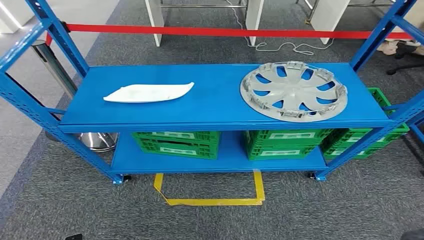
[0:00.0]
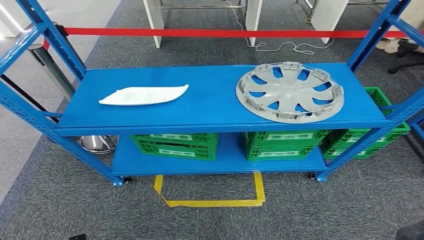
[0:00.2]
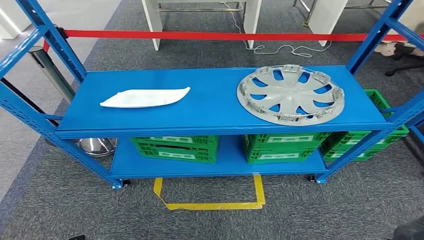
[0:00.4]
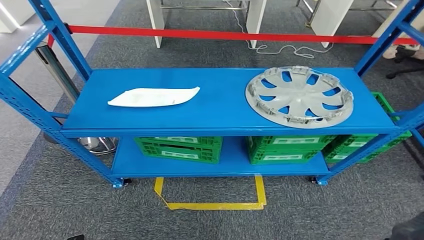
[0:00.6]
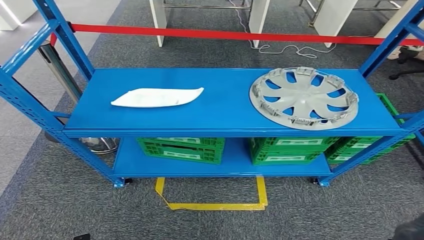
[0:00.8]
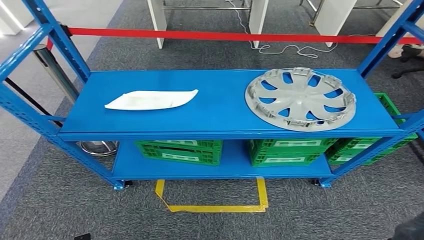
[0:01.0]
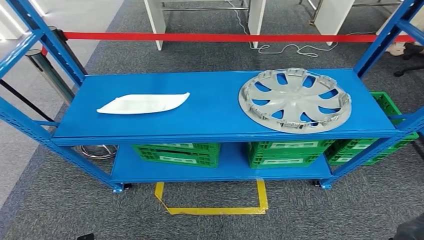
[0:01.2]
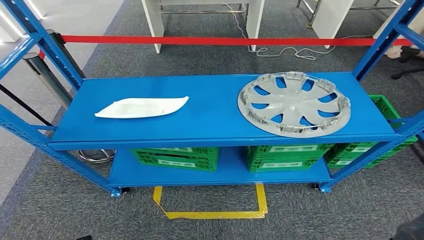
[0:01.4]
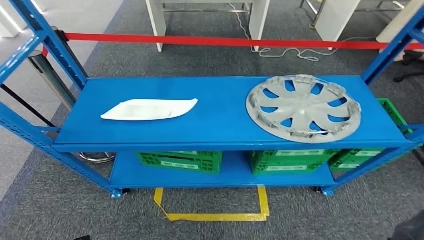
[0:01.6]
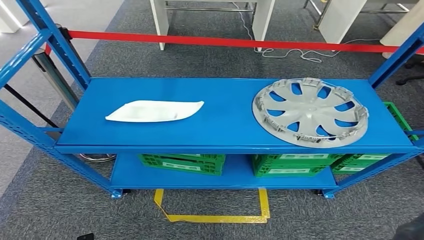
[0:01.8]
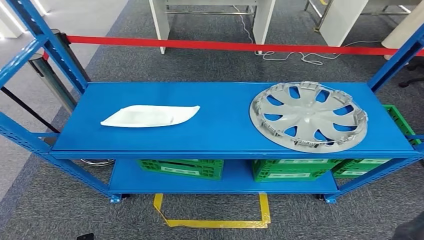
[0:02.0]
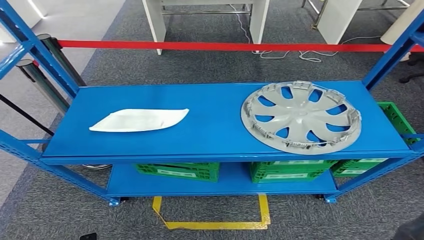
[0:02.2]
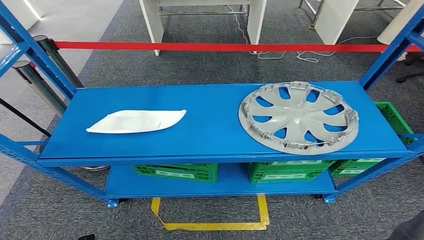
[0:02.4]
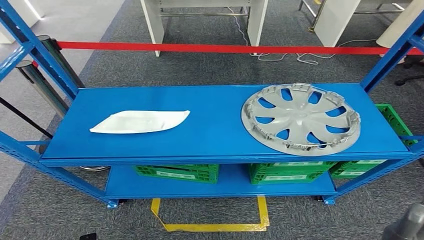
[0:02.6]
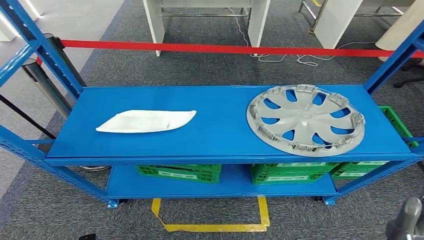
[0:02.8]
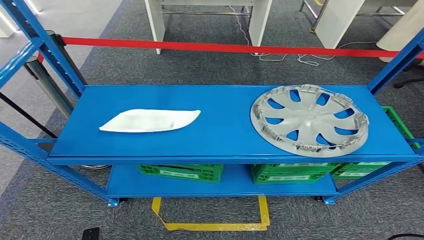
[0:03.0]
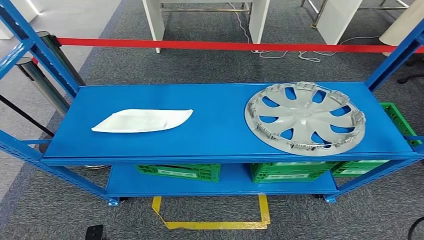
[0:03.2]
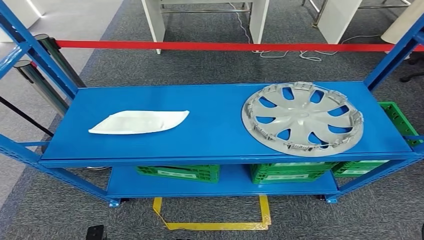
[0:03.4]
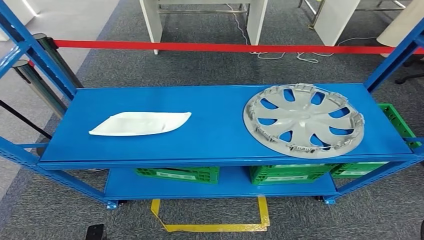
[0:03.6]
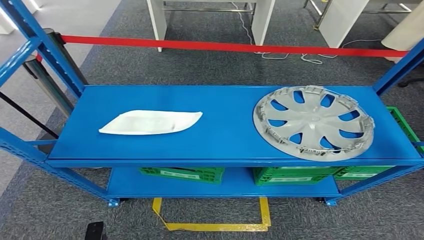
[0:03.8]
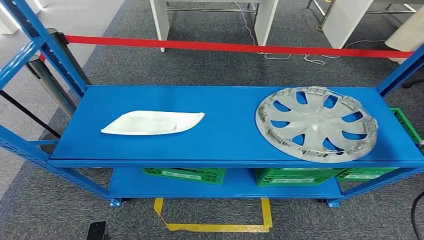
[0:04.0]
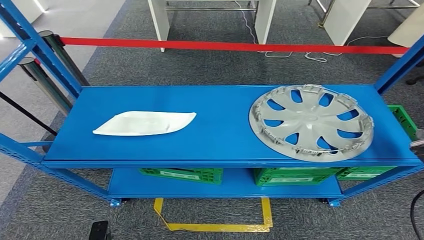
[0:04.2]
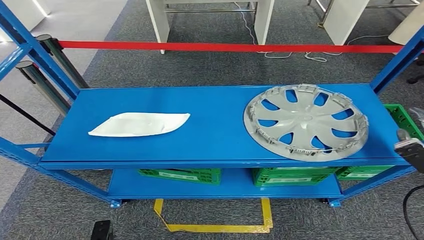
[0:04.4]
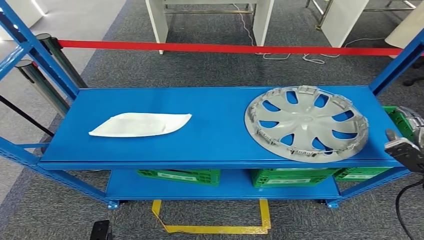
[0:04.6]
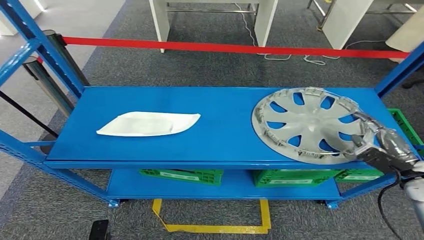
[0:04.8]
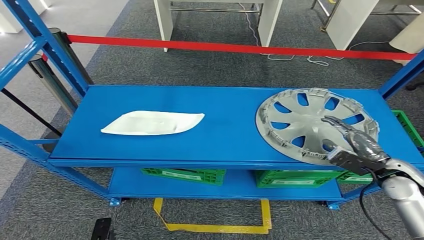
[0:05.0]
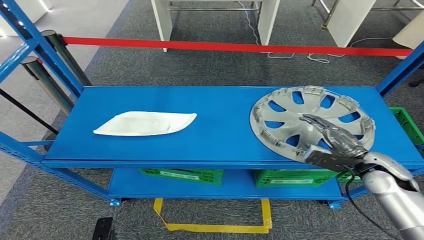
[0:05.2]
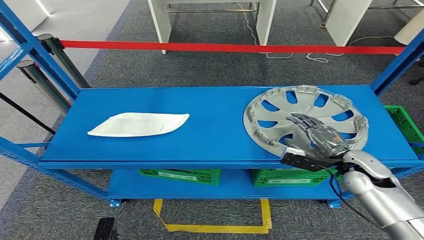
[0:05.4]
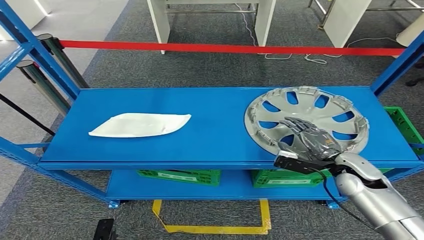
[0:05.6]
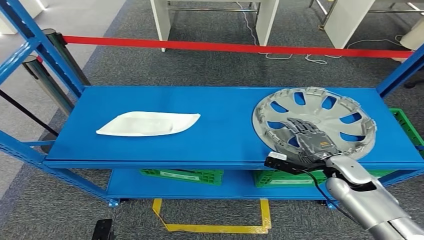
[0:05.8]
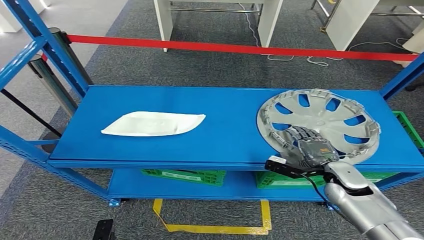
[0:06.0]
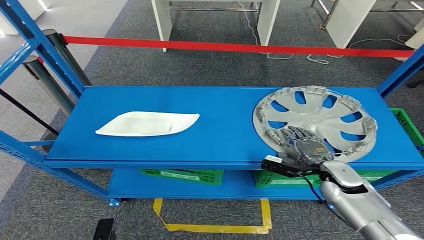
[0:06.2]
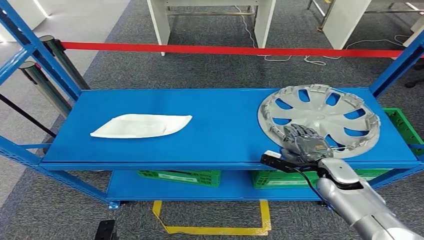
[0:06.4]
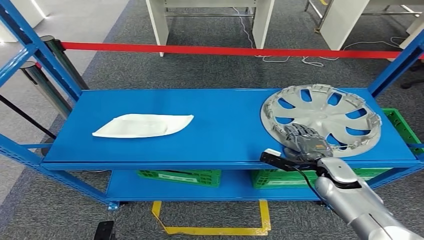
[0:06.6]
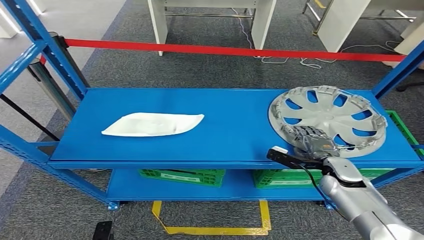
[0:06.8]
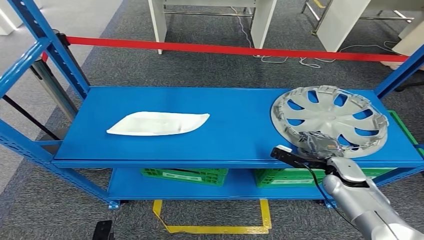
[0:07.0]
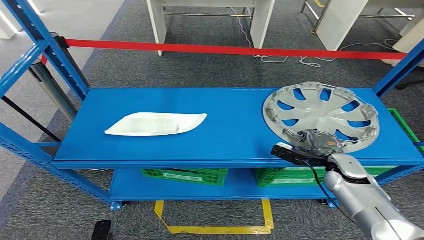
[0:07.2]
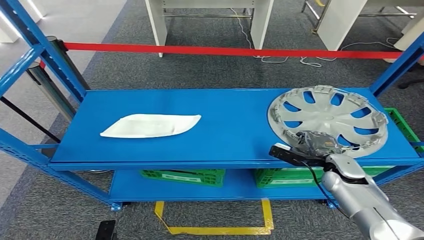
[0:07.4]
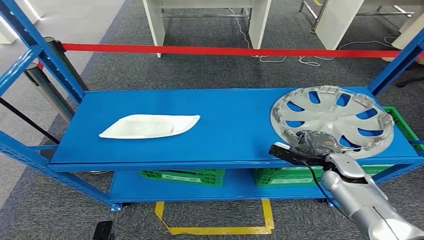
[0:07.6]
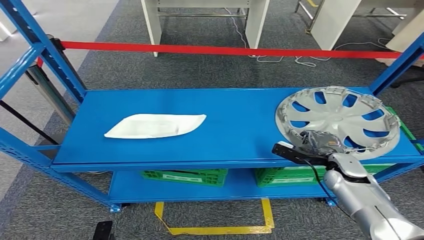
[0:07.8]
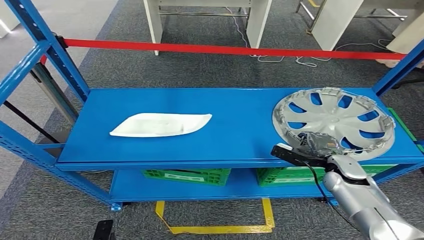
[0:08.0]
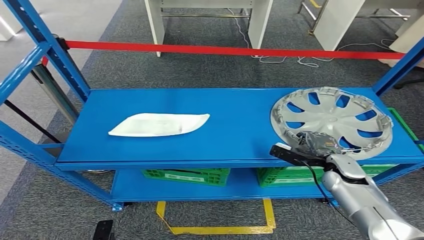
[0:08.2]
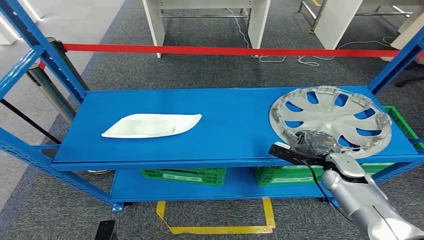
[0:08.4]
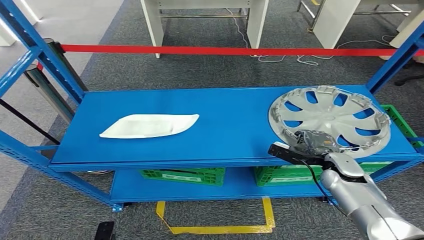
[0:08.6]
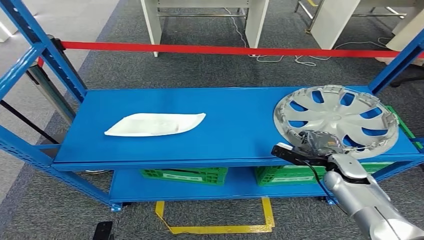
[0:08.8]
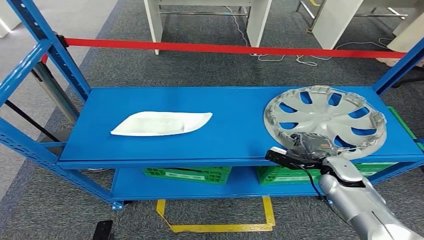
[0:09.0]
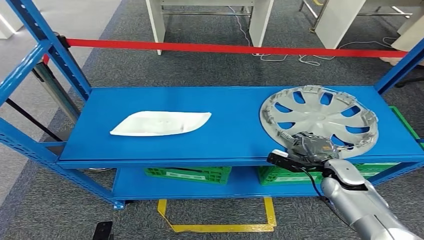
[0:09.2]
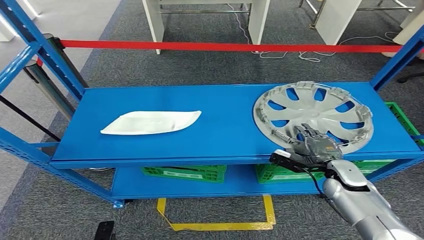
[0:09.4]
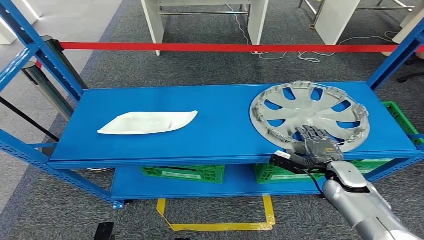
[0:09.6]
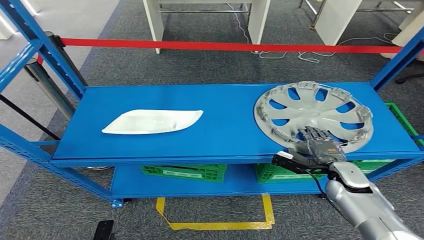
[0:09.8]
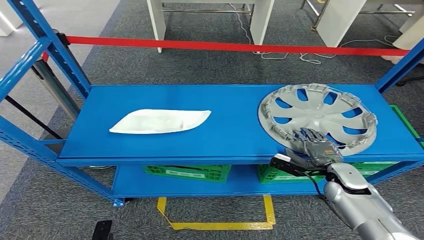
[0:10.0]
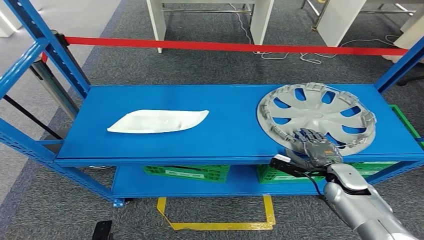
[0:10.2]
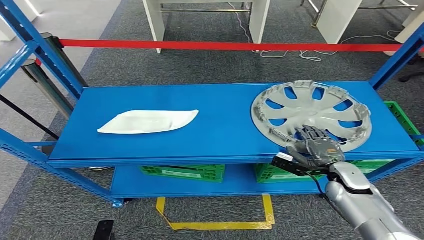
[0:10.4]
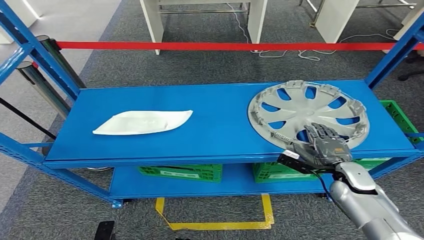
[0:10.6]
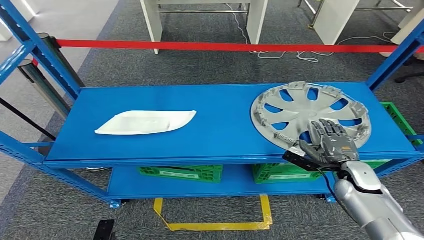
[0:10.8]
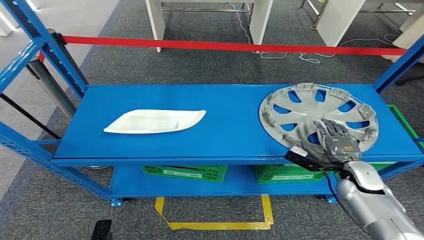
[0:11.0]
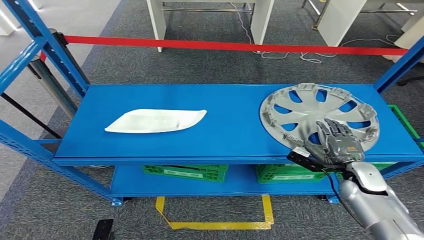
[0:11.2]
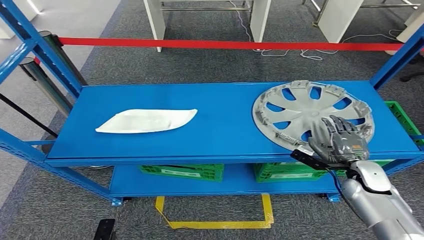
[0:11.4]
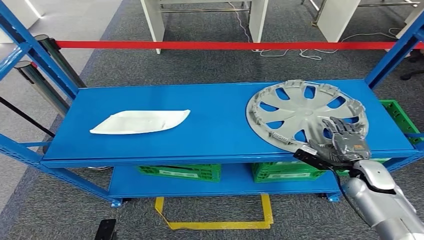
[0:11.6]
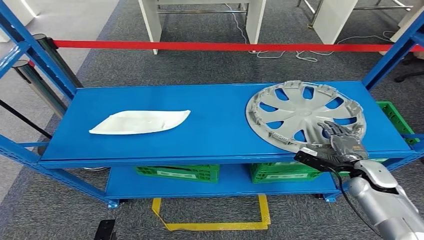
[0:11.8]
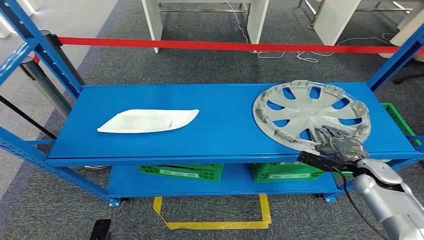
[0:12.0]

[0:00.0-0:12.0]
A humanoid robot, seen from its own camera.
0:10.4 to 0:12.0: The right hand shifts some 5 cm to the right.

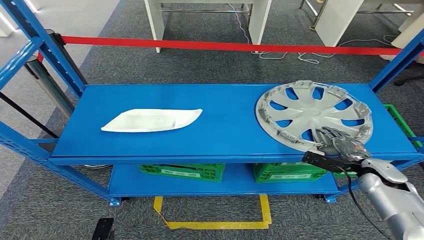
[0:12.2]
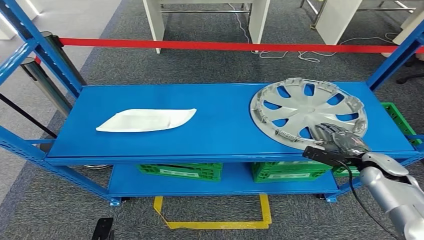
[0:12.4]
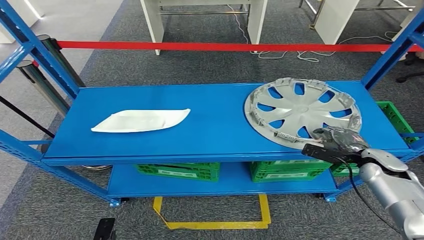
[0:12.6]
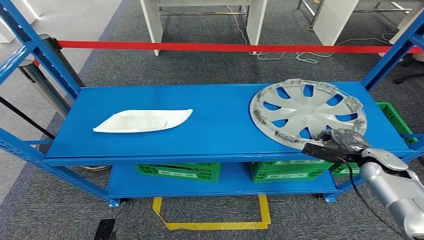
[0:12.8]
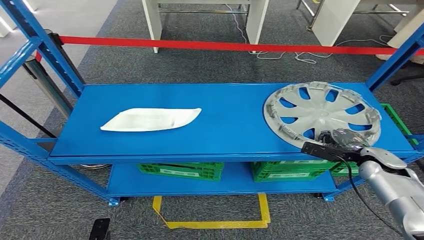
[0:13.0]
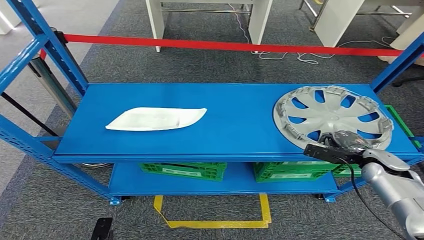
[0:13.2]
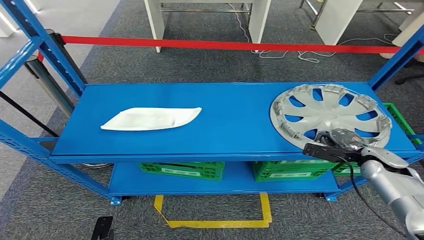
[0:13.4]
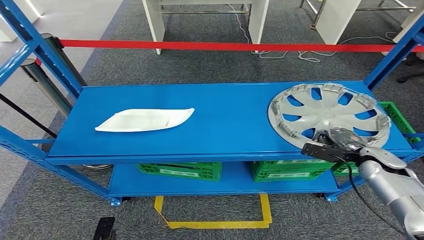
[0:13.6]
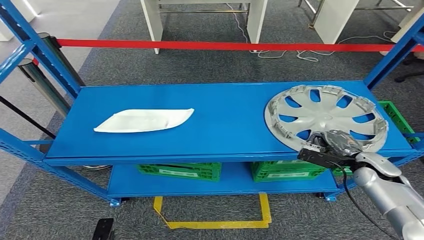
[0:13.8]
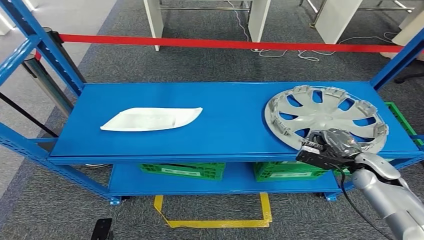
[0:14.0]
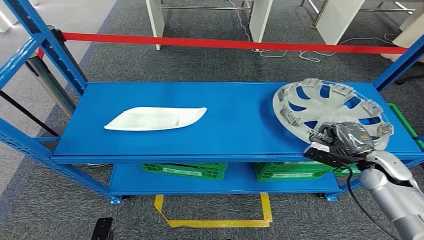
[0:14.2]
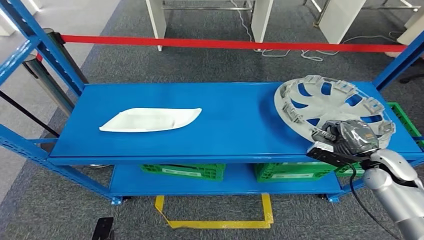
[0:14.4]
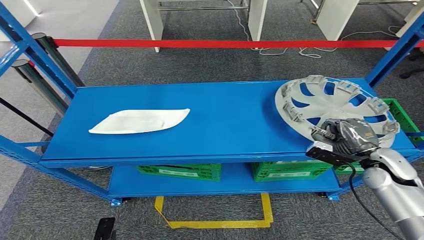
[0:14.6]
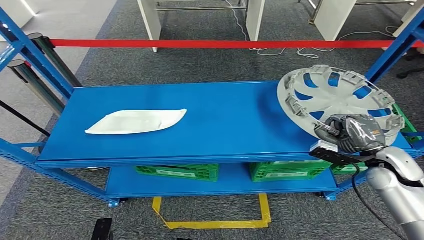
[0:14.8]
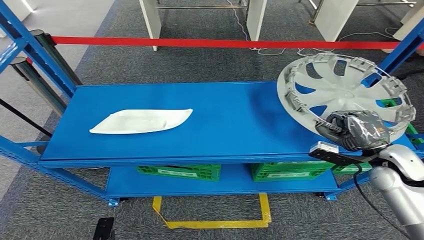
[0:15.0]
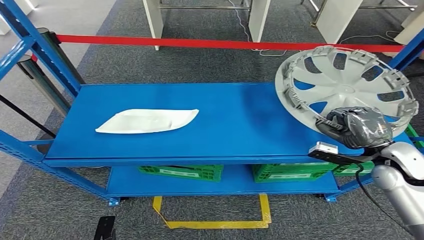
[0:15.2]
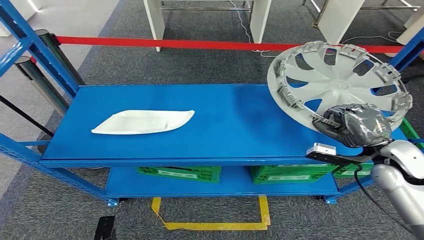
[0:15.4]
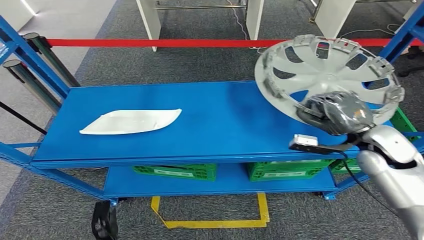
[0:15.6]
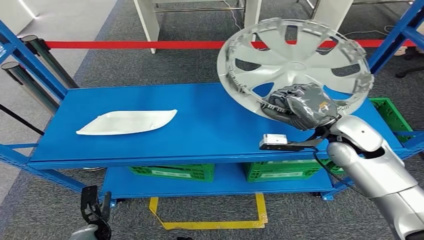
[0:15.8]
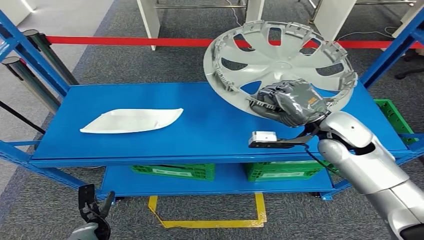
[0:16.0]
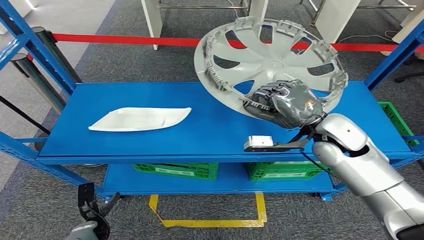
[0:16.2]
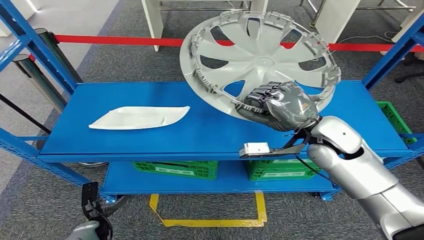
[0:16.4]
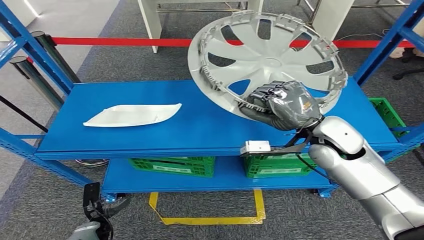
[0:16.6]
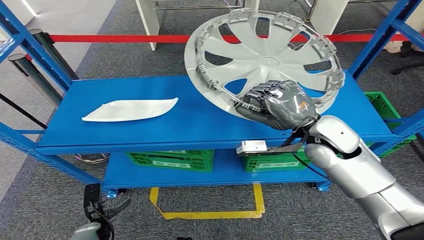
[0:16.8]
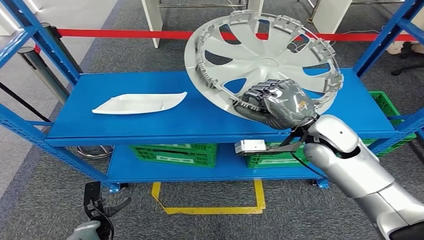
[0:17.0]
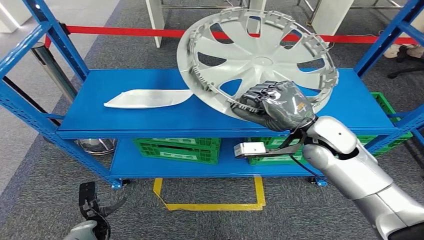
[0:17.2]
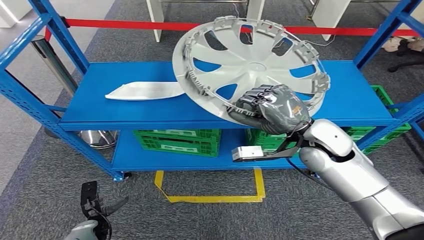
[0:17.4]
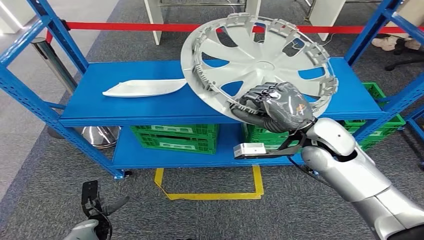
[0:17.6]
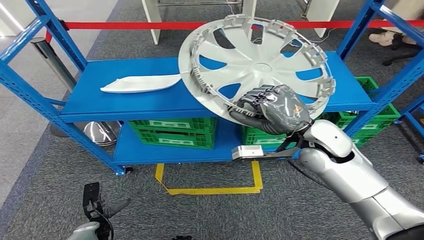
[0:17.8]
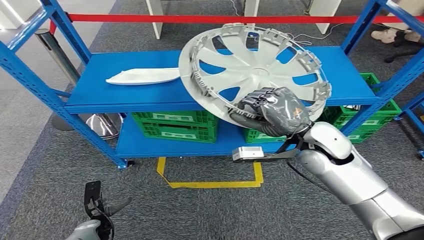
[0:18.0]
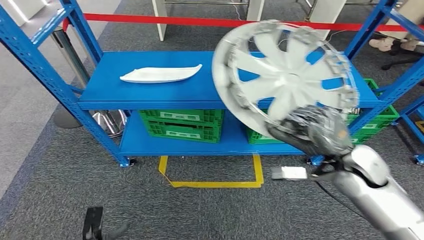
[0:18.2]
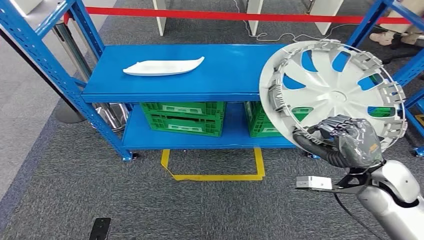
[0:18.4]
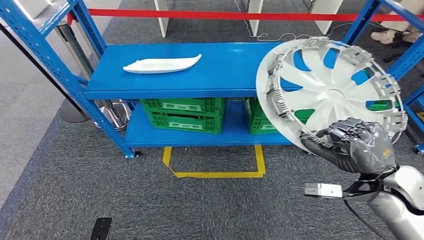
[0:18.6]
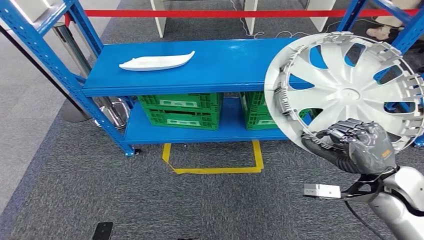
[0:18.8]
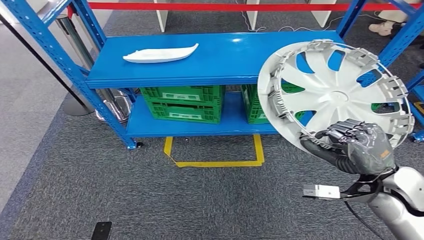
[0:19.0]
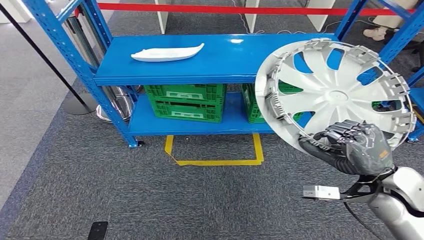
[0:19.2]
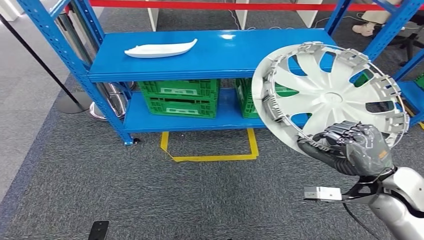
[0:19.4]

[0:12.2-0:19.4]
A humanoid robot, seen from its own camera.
Step, 0:12.2 to 0:17.2: Pick up the small component from the shelf.
0:12.2 to 0:13.6: There are only small adjustments of the hands.
